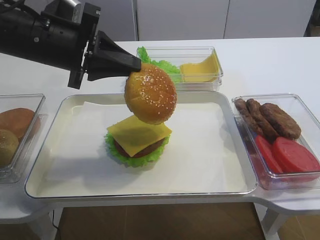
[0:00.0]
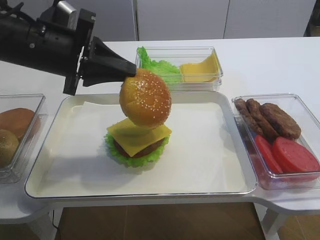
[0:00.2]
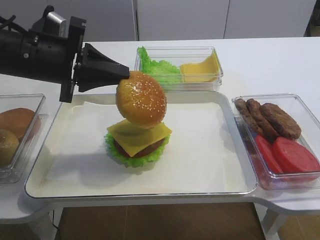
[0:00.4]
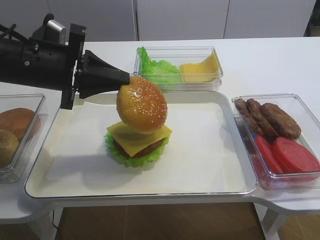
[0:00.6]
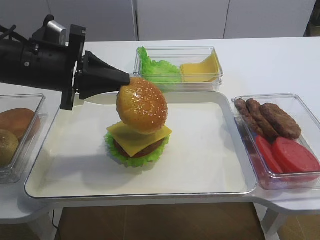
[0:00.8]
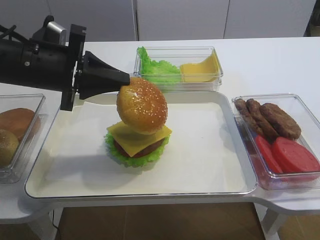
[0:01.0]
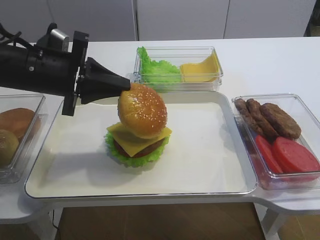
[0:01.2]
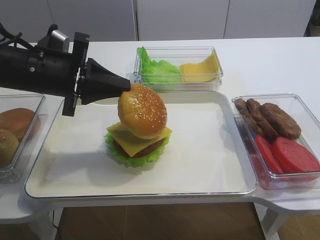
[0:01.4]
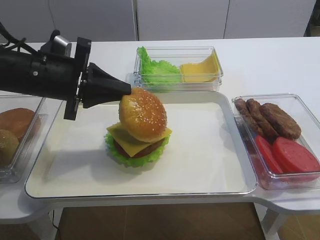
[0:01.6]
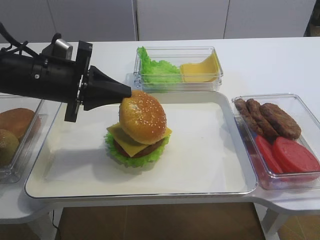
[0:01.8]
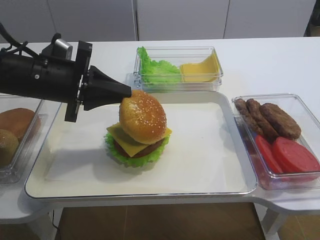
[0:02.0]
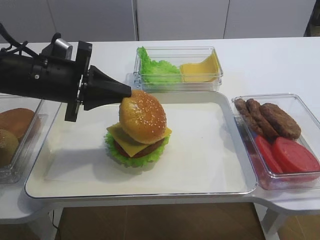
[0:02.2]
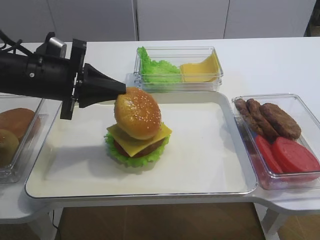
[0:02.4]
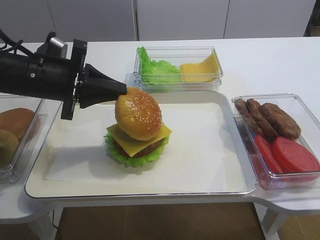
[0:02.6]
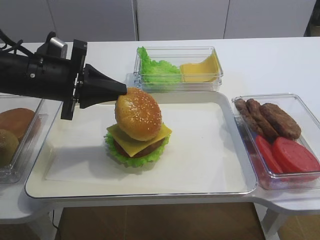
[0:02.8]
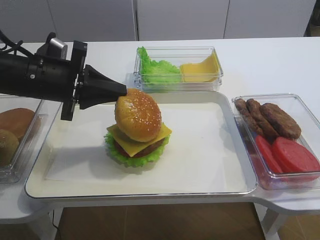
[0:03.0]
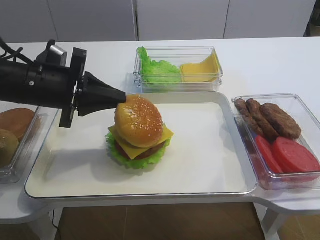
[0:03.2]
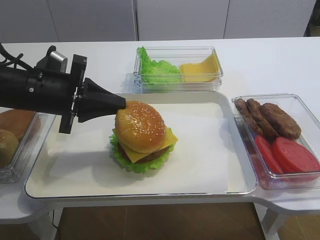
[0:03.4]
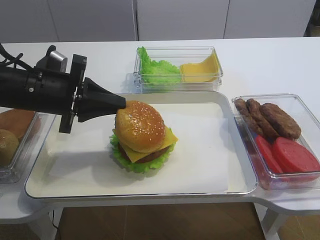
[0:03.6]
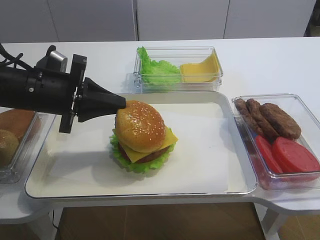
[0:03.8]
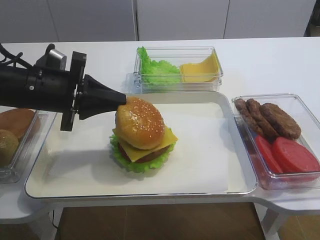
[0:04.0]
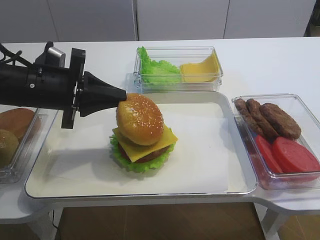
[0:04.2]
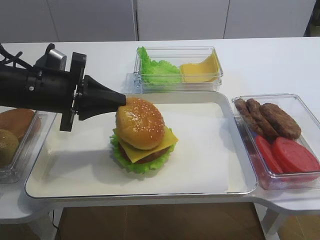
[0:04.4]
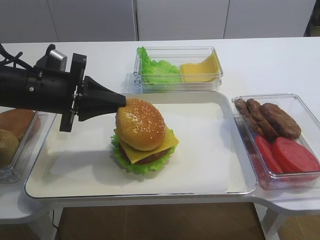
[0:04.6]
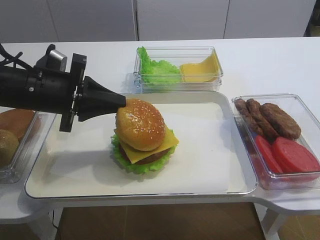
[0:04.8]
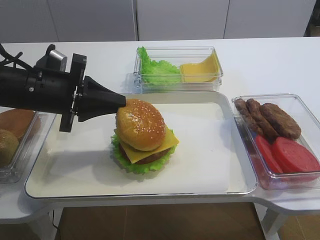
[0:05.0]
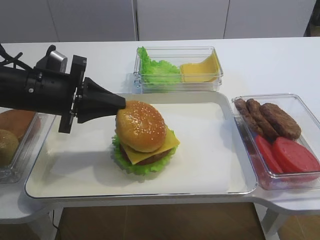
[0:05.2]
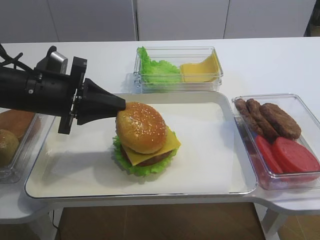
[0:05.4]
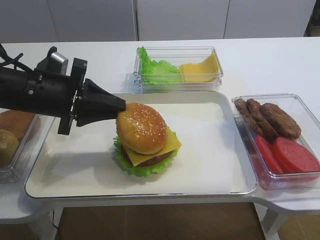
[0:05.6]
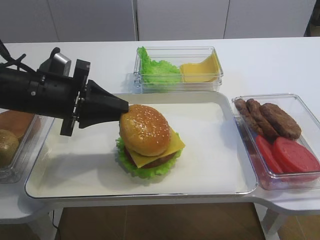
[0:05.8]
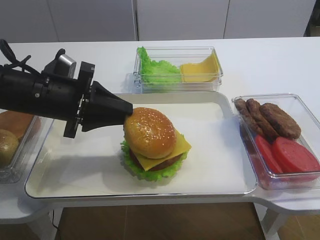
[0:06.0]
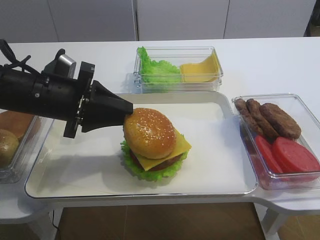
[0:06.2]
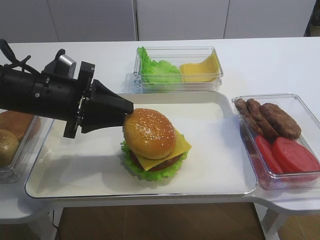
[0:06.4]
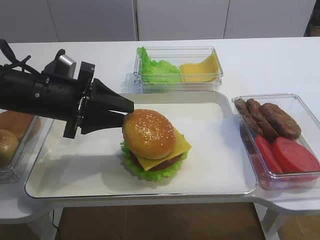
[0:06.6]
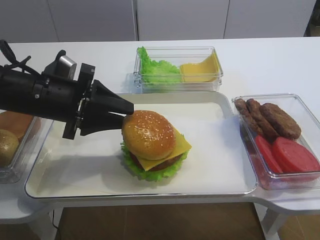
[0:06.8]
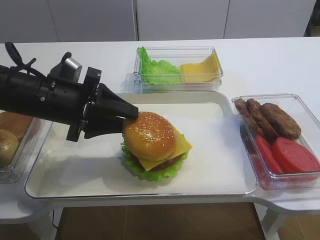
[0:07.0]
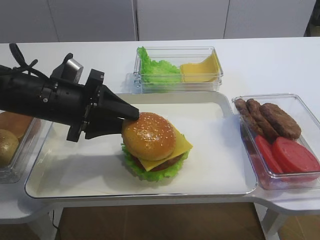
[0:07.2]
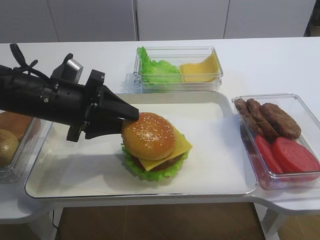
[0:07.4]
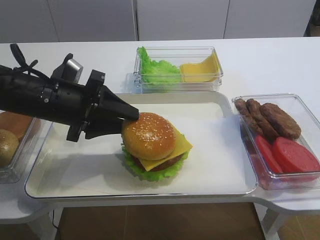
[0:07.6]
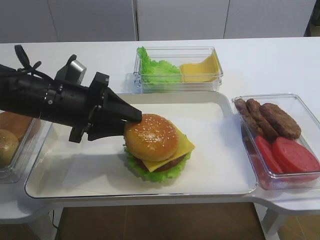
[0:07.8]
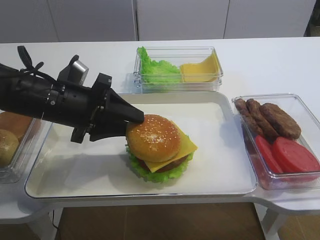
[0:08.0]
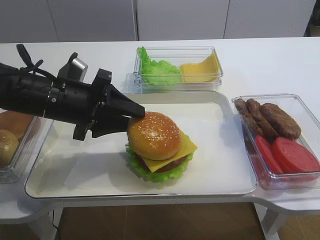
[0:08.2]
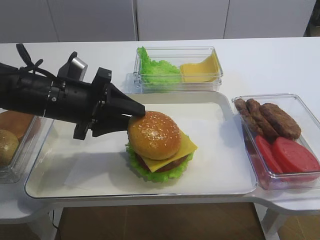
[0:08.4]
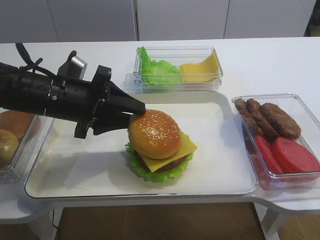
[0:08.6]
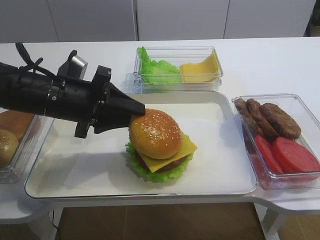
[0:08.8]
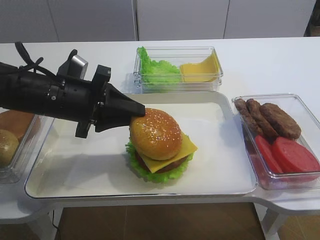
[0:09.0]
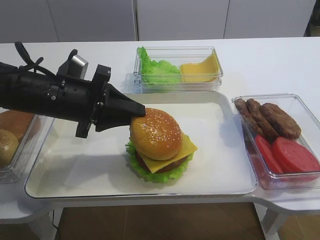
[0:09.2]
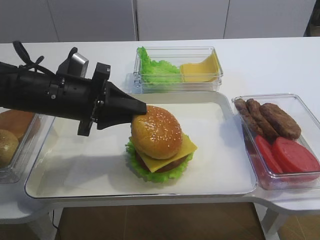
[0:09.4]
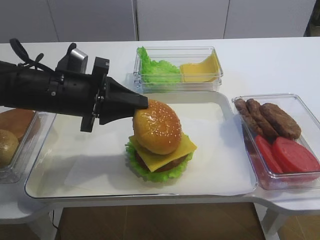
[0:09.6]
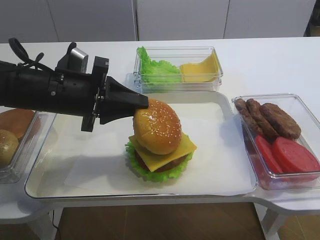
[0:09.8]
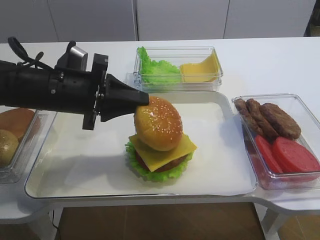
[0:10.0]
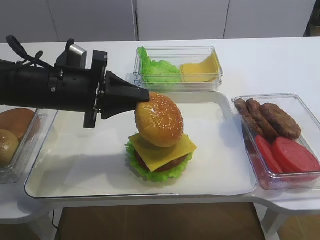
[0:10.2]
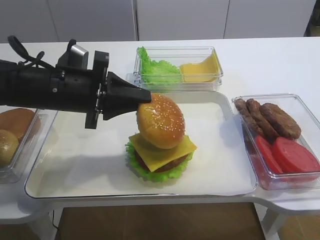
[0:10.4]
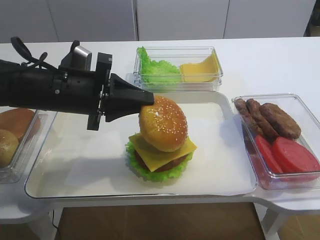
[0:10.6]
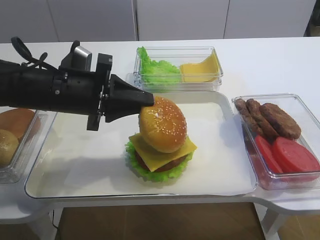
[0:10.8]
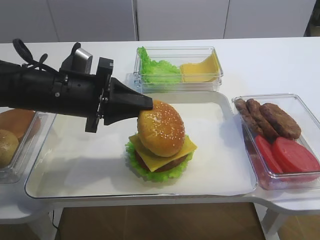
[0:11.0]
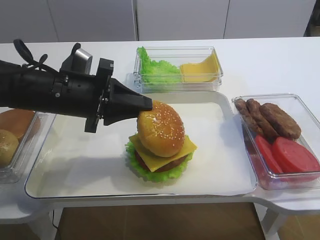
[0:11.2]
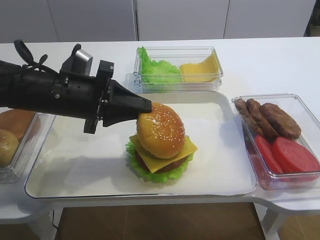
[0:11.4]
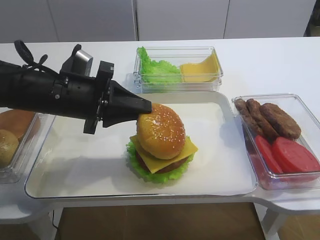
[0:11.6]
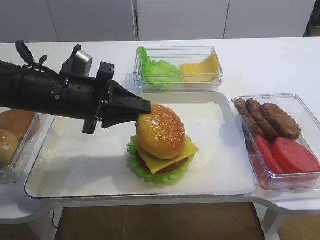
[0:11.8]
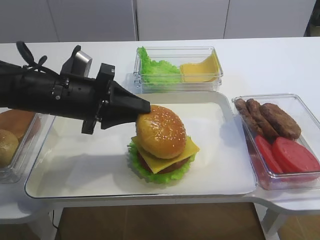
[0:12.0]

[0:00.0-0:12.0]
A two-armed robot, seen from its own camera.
0:00.0 to 0:01.6: The left gripper heads downward, covering about 5 cm.
0:01.6 to 0:03.0: The two grippers keep their place.
0:03.0 to 0:06.0: The grippers move only a little.
0:06.0 to 0:07.6: The two grippers keep their place.
0:07.6 to 0:09.0: Neither gripper changes place.
0:09.0 to 0:12.0: The grippers make only small movements.

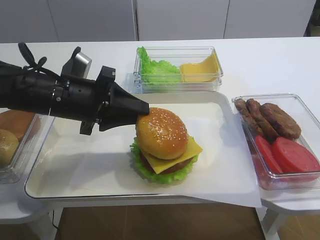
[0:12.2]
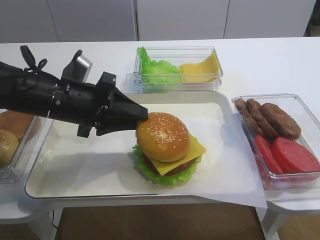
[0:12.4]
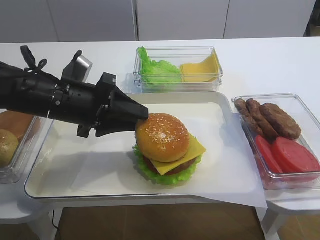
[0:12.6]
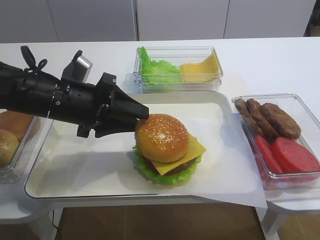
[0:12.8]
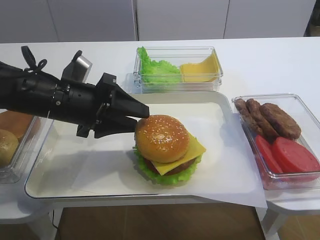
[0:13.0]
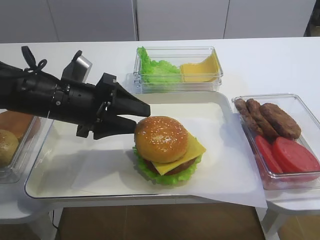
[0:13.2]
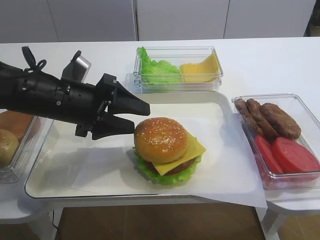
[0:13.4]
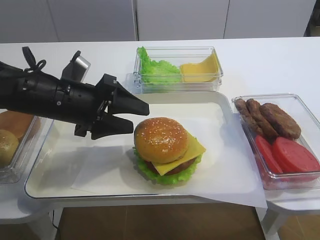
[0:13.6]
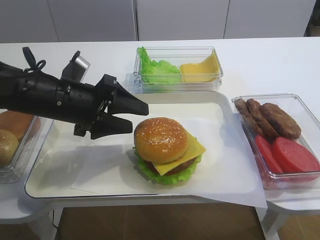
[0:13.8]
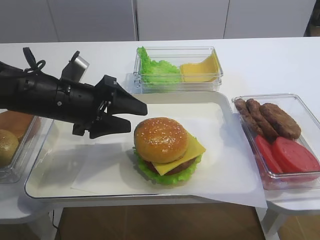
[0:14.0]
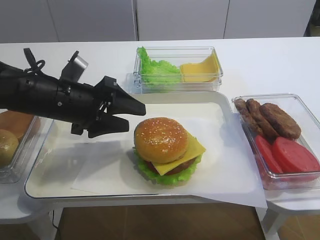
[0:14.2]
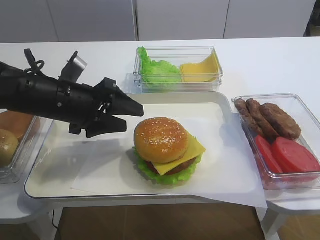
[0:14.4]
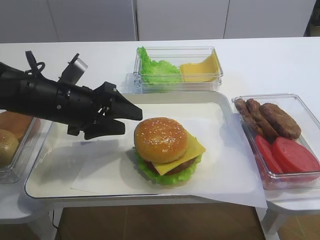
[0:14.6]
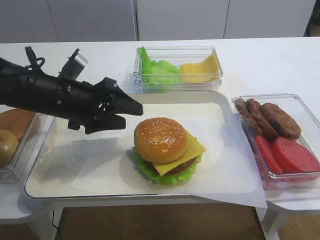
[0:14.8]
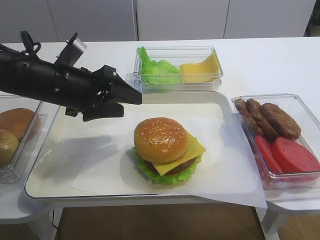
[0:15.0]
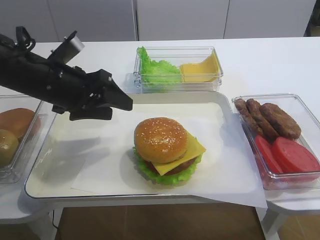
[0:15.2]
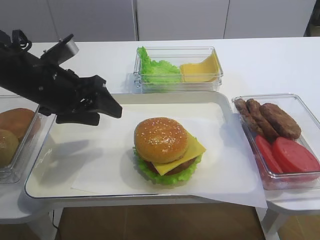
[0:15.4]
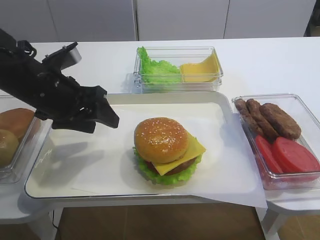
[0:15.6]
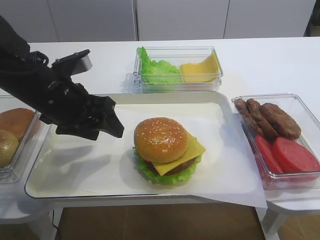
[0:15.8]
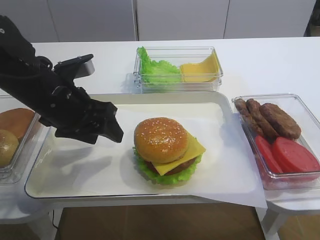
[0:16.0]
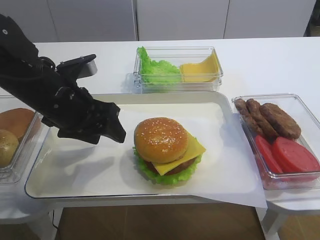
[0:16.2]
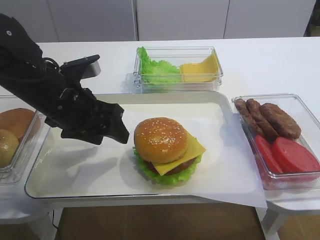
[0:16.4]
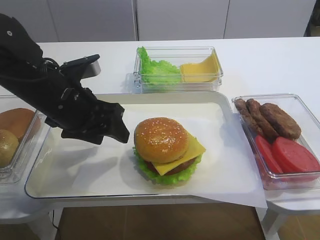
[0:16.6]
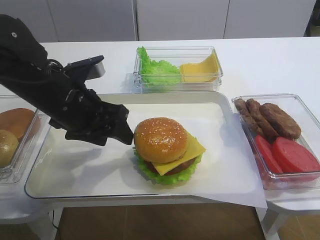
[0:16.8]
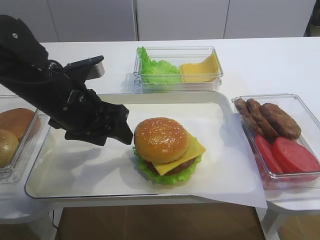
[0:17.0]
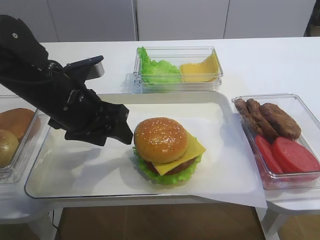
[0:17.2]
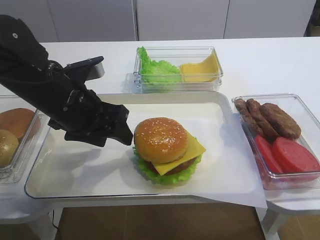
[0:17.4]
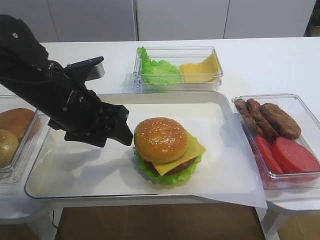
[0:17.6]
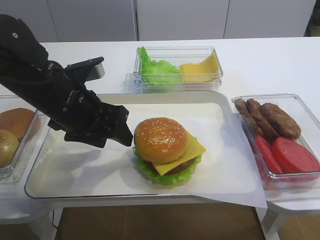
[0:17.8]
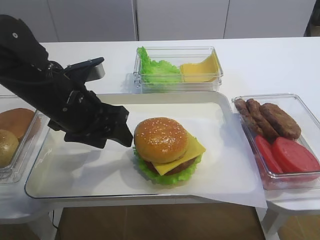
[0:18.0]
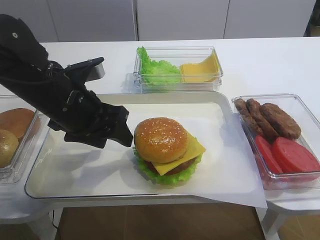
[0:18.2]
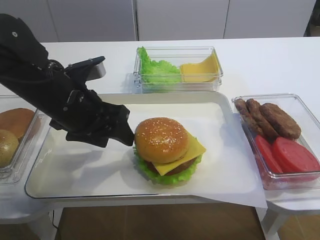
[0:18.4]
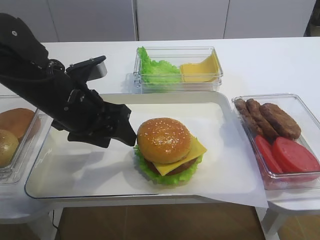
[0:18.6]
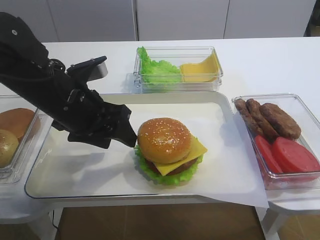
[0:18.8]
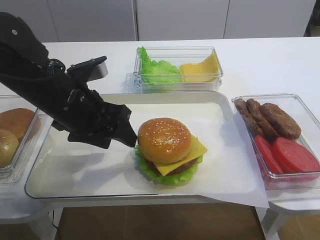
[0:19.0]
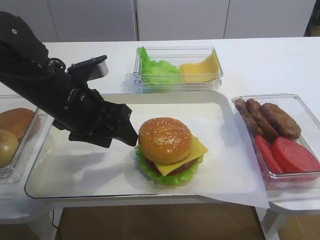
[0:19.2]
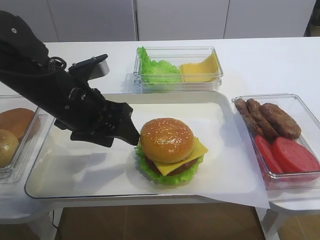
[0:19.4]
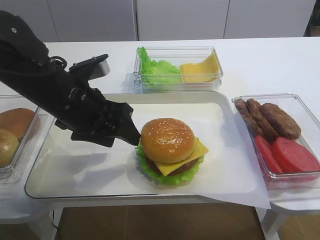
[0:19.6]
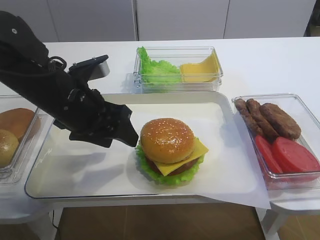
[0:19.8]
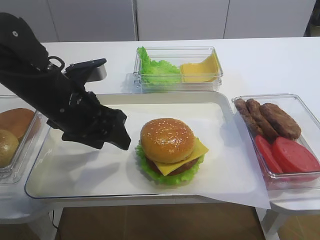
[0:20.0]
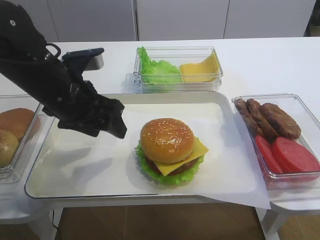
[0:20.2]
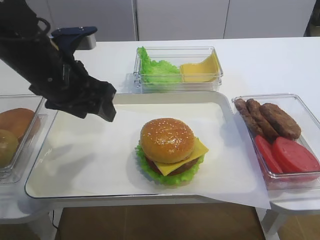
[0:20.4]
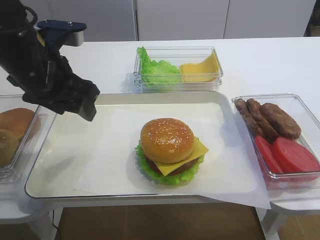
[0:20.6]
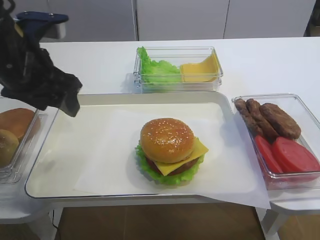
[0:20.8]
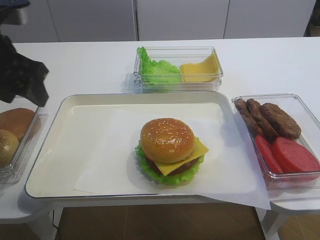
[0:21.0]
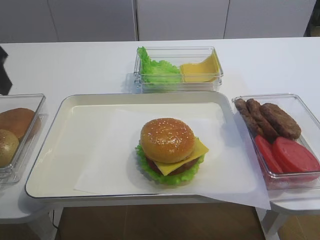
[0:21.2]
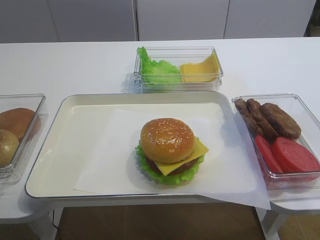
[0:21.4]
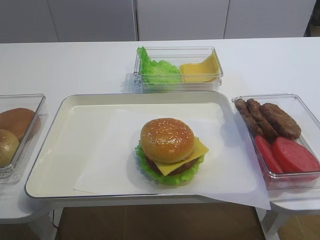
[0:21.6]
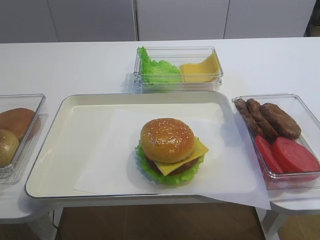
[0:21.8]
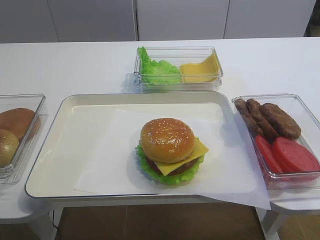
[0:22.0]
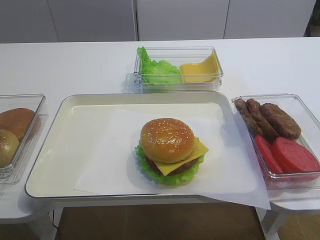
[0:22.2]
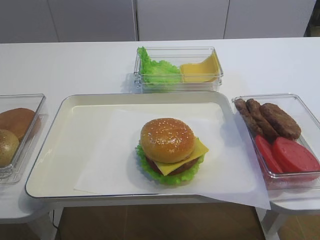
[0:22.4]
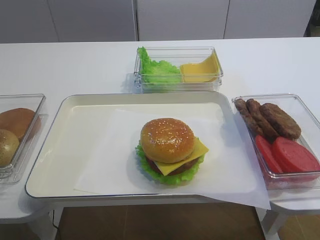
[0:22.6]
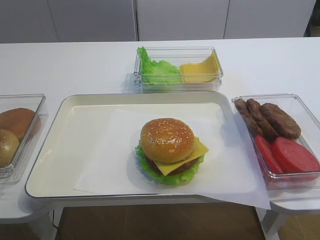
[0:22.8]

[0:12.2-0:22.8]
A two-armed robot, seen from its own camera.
0:12.2 to 0:13.8: The left gripper opens.
0:13.8 to 0:15.2: There are only small adjustments of the grippers.
0:16.8 to 0:19.8: The two grippers keep their place.
0:19.8 to 0:21.2: The left gripper moves to the left and upward, some 15 cm.
